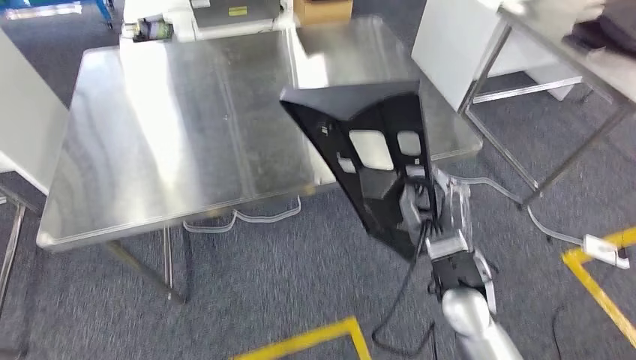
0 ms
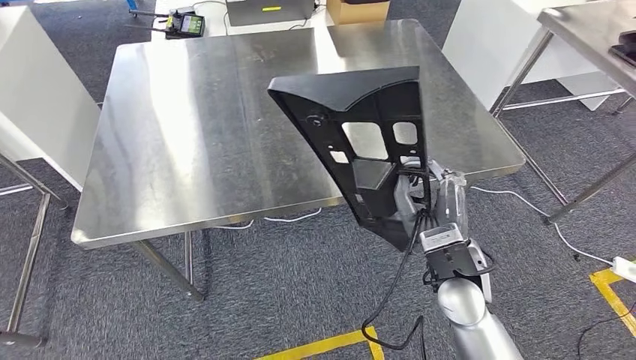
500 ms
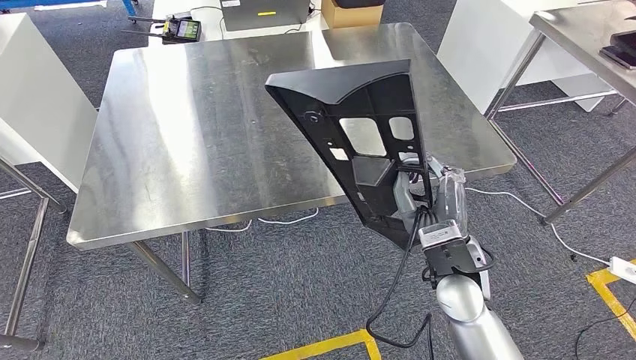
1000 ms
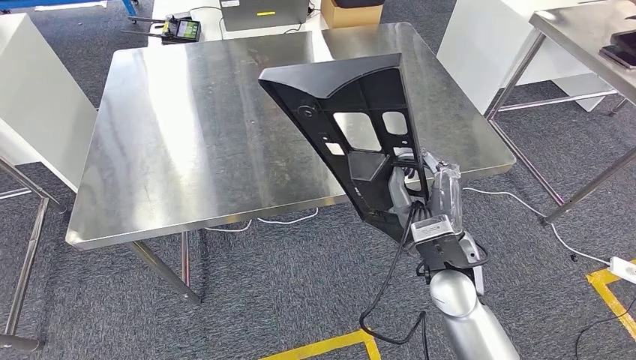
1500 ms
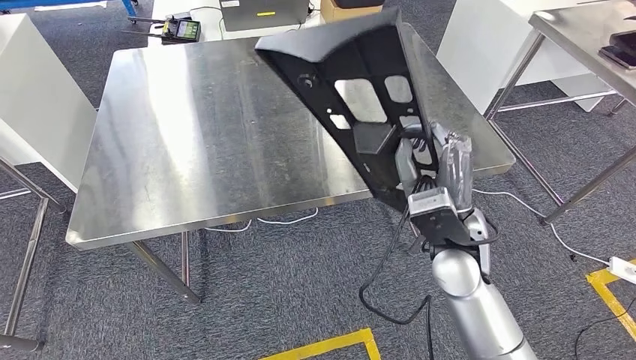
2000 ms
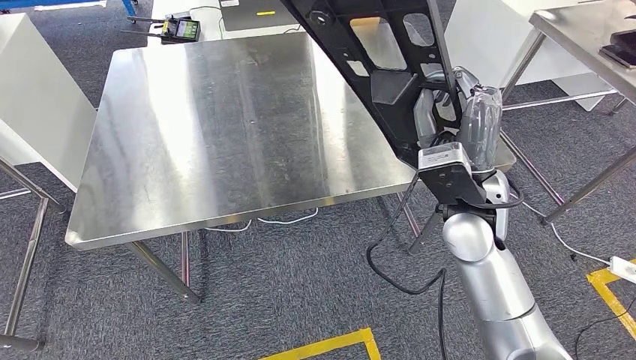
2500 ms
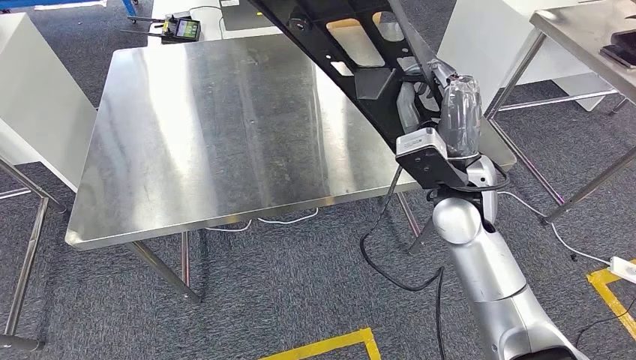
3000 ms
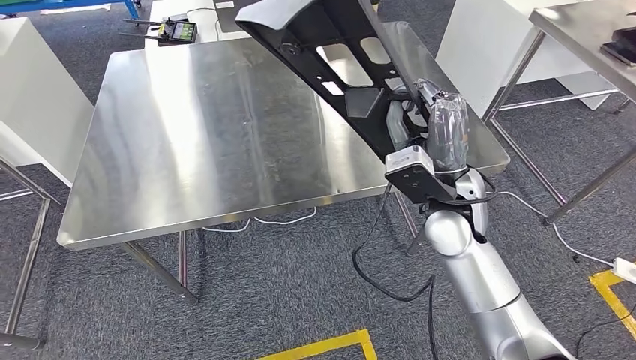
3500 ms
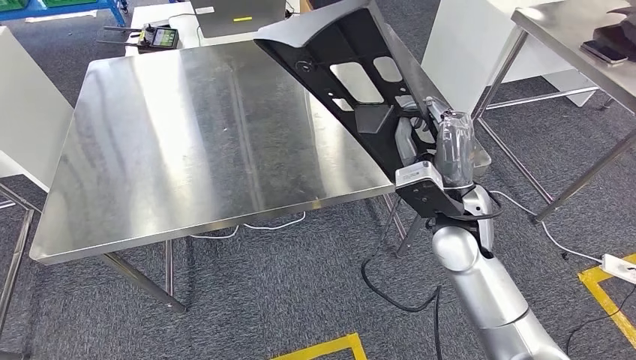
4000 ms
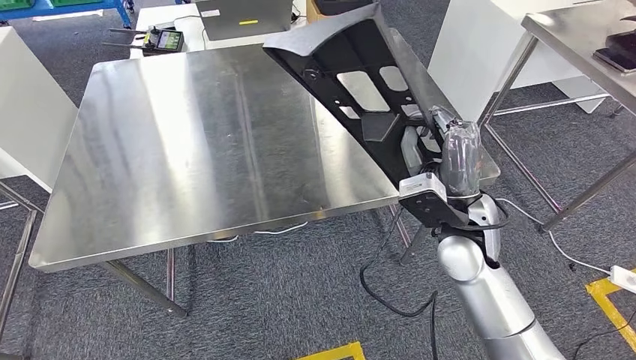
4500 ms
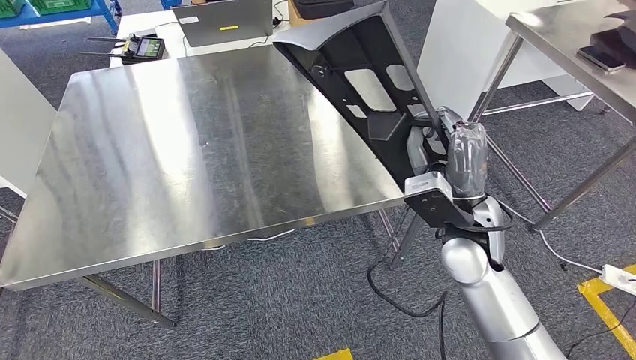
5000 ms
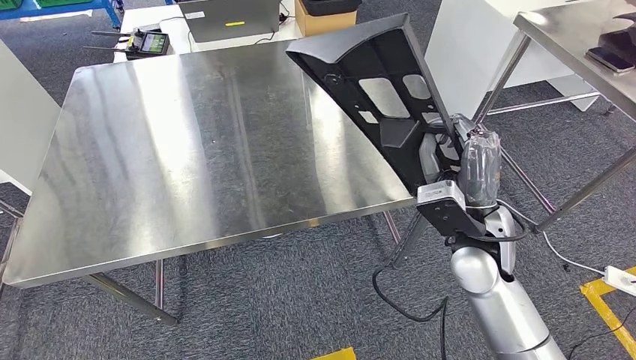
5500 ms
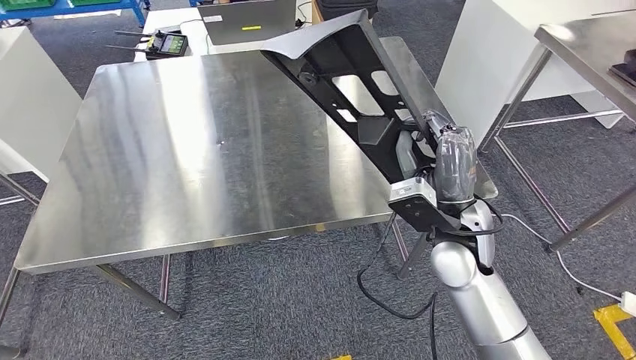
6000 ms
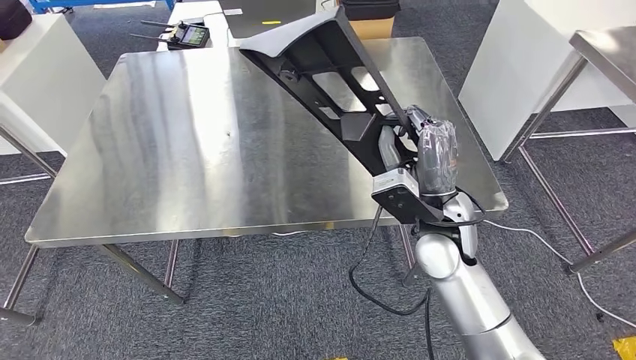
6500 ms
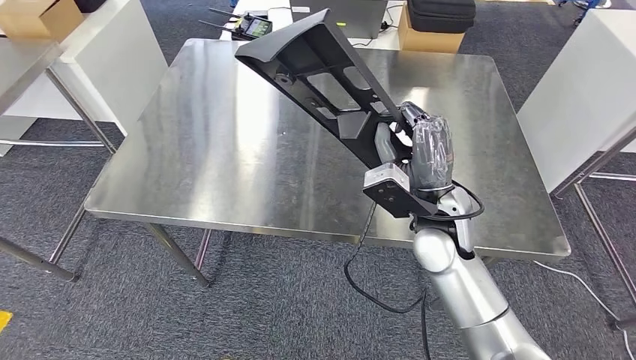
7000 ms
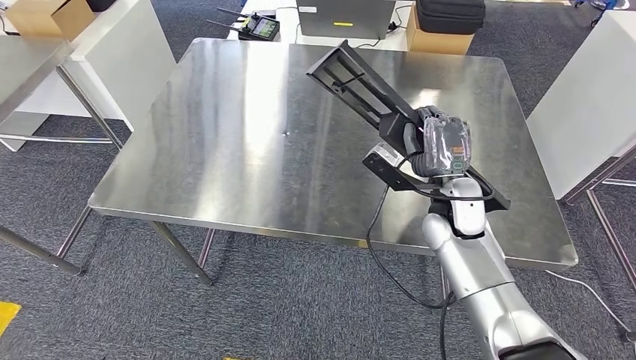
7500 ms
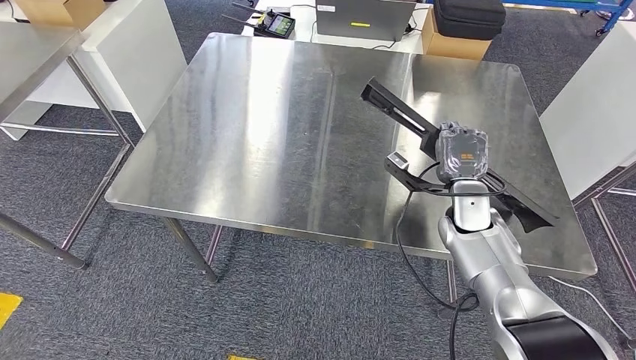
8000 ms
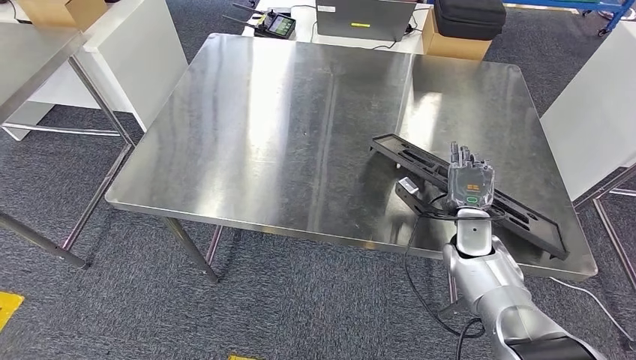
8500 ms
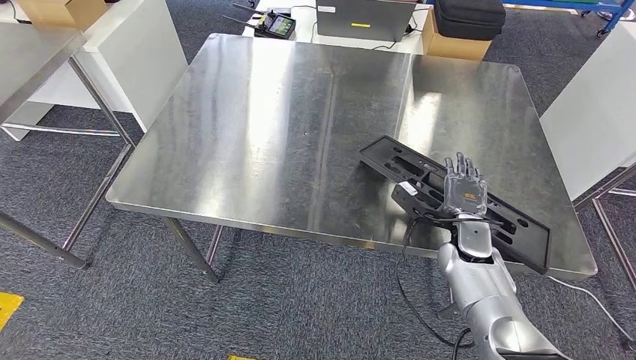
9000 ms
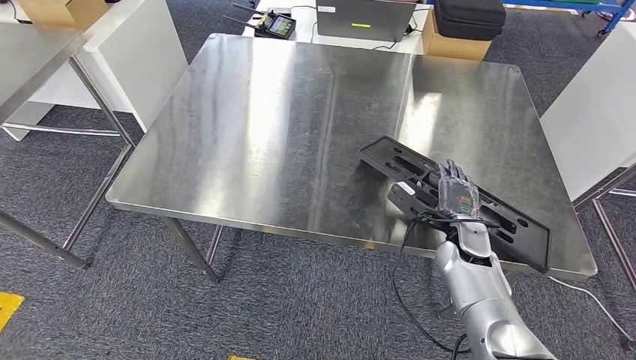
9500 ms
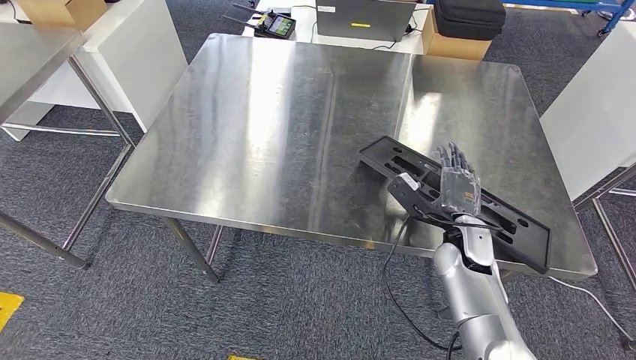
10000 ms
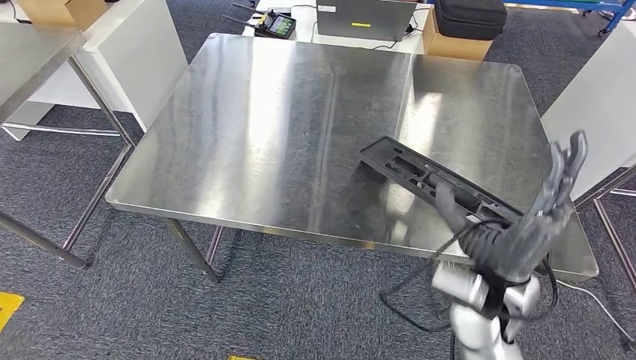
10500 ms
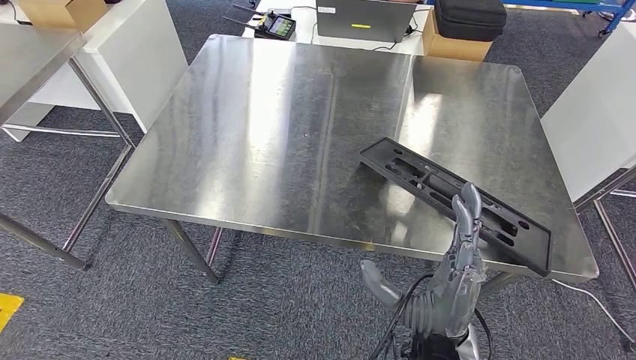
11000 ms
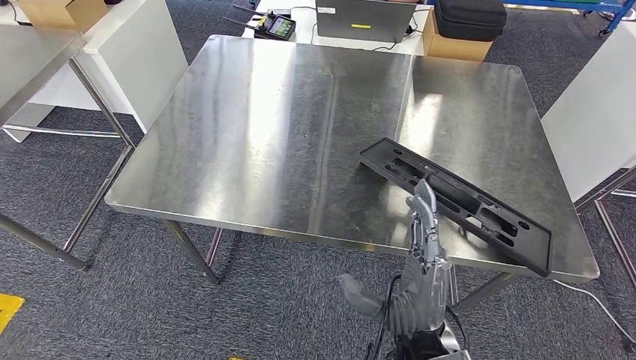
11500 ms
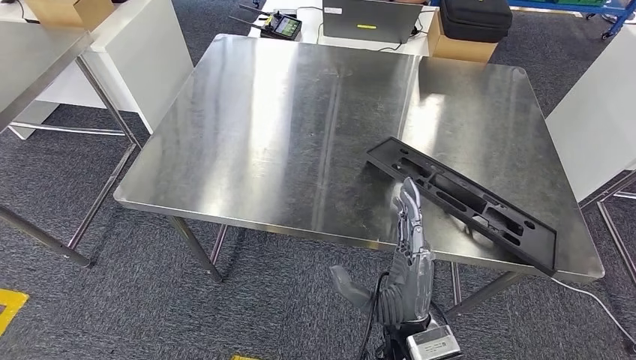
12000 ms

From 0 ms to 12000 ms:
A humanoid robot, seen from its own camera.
From 8000 ms to 10000 ms: The right hand shifts some 5 cm backward.

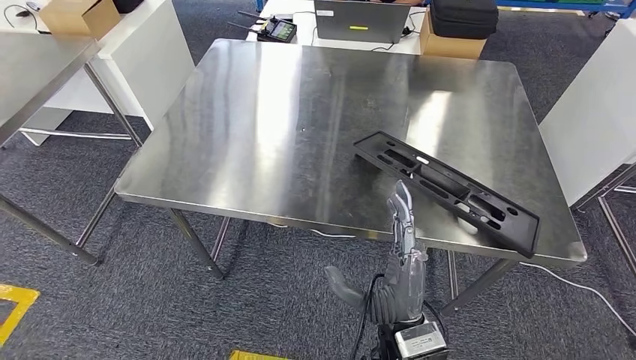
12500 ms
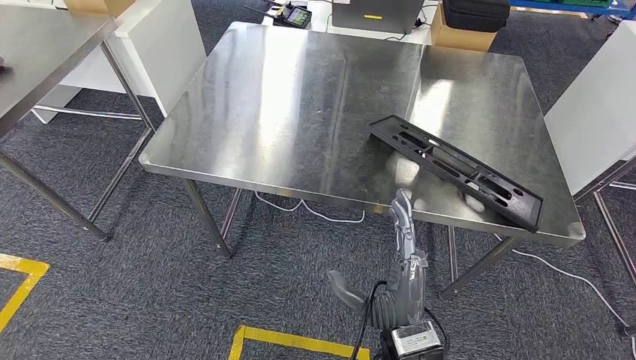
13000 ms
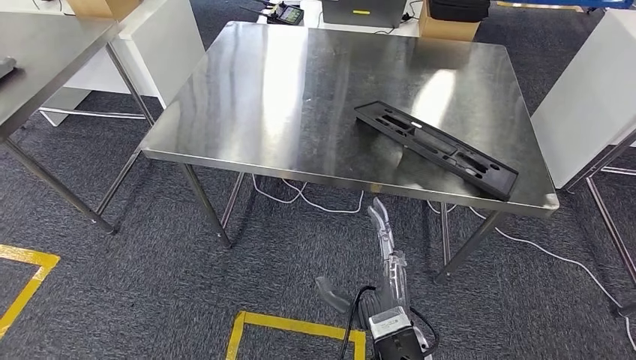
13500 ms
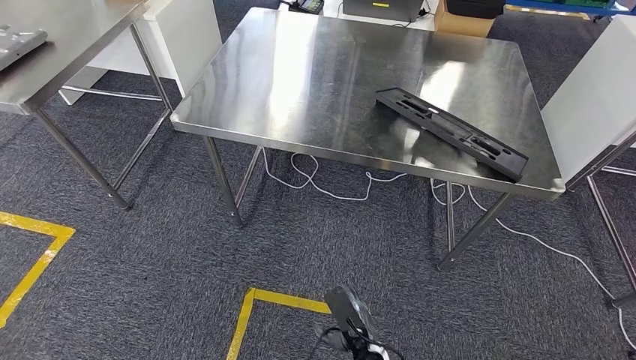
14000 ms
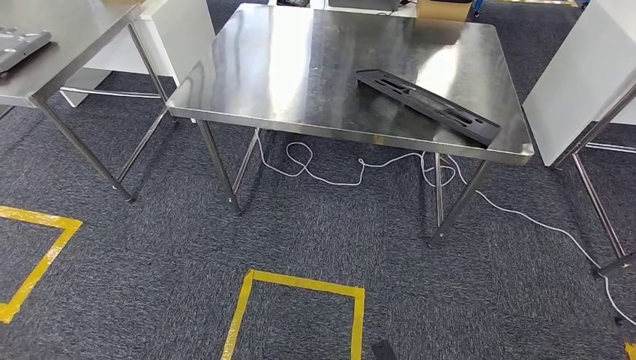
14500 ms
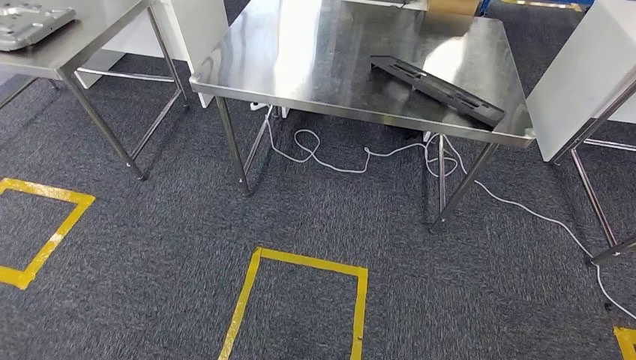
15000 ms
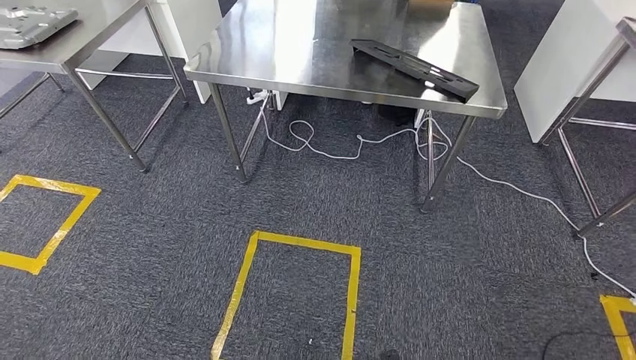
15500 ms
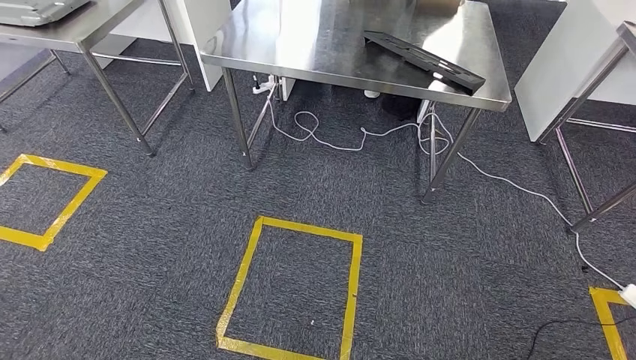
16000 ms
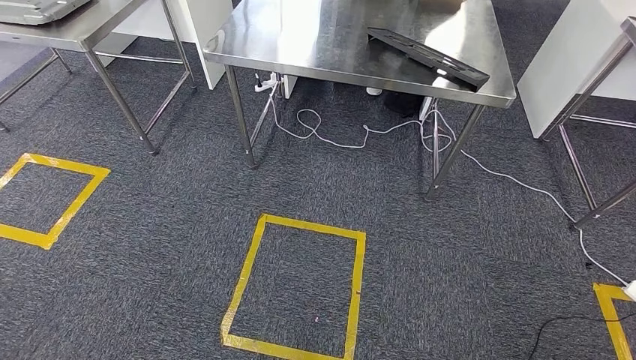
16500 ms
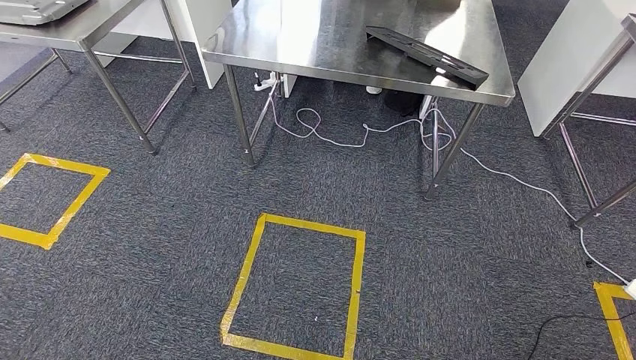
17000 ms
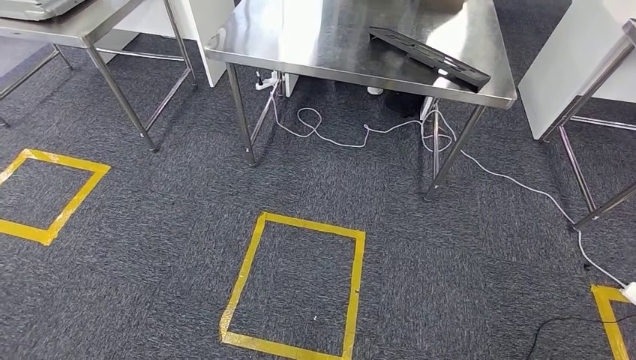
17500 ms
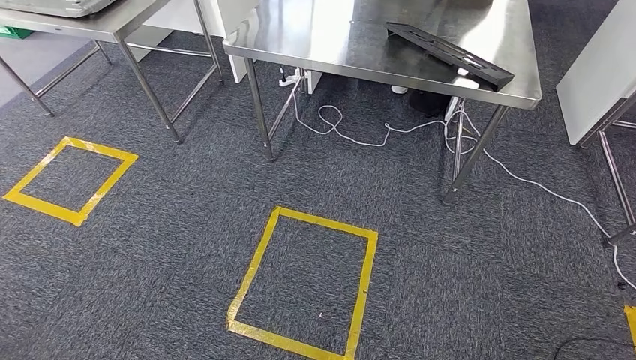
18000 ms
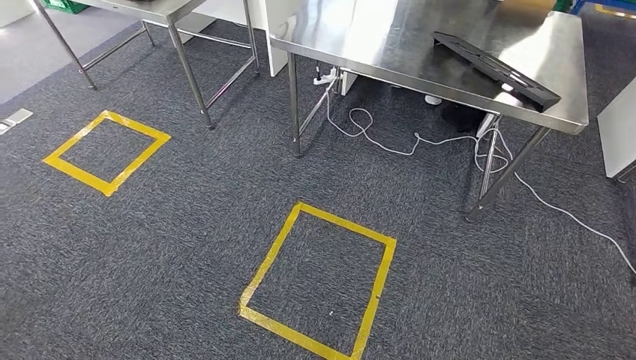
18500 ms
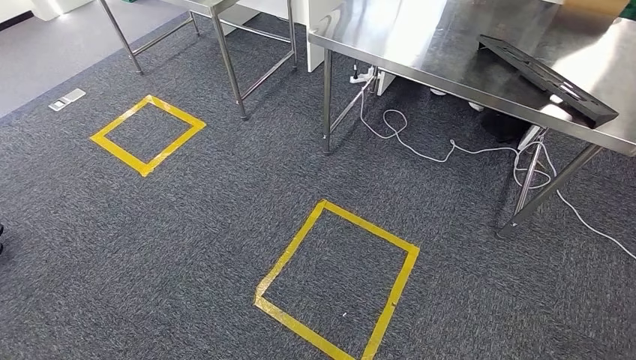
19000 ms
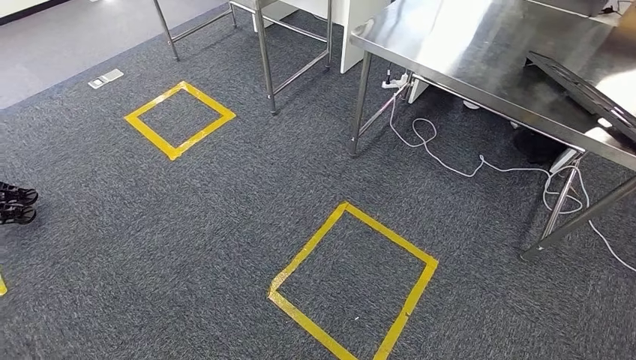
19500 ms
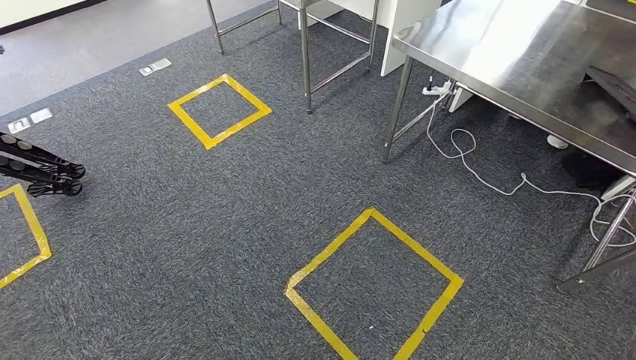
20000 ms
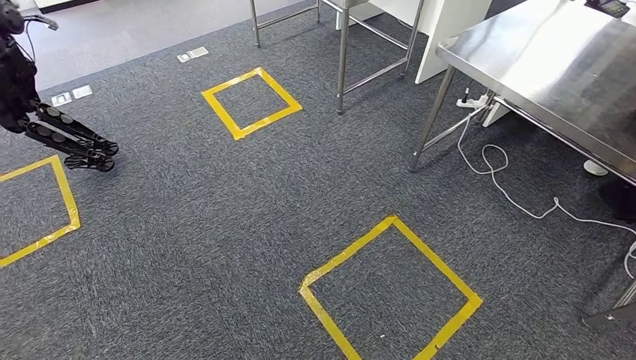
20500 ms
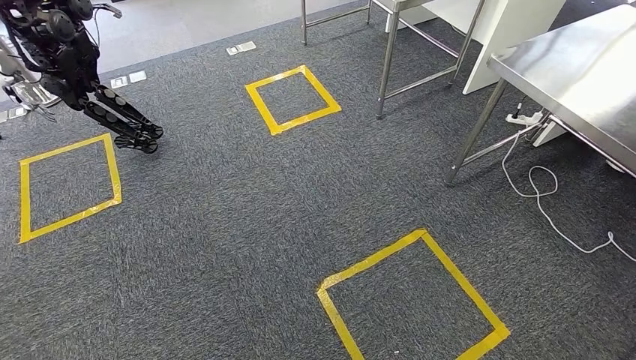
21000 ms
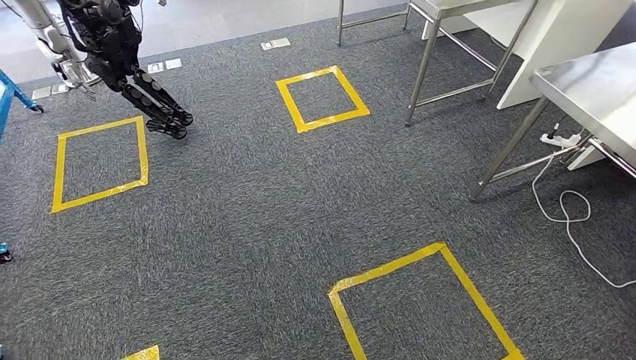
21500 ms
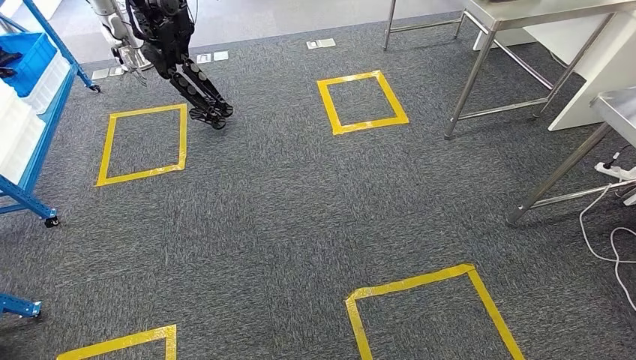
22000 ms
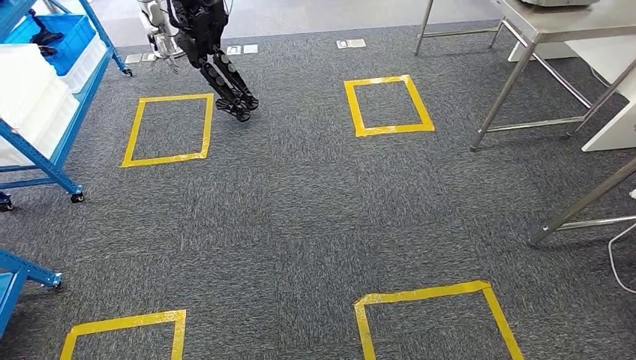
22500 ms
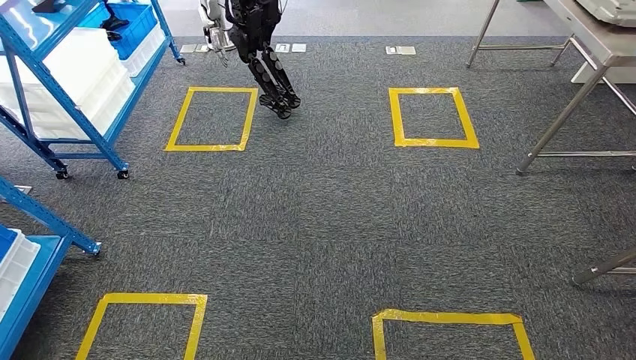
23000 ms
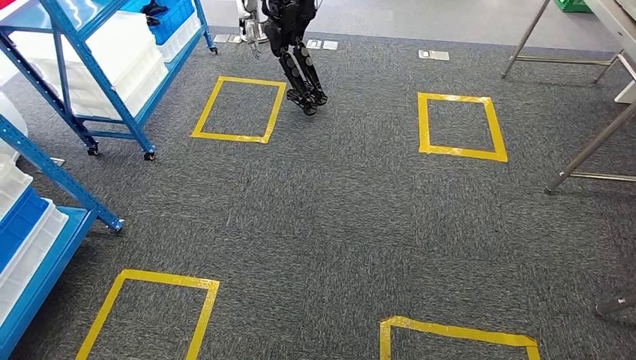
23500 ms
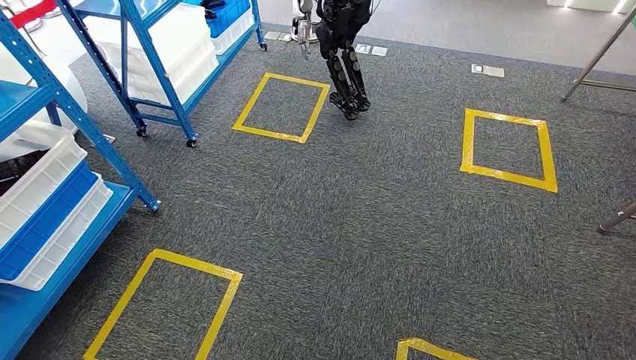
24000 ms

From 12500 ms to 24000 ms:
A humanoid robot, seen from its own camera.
Step, from 12500 ms to 15500 ms: Insert the large material into the corresponding slot on the workbench.
